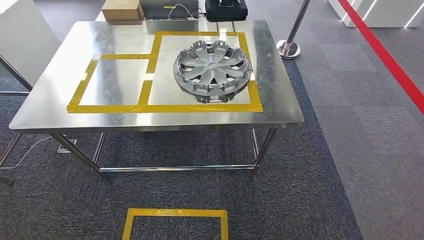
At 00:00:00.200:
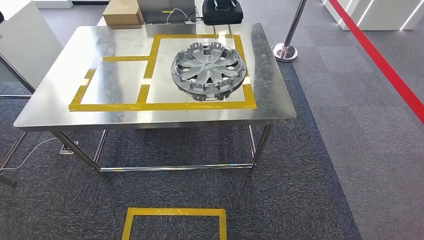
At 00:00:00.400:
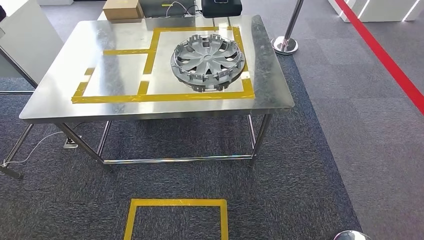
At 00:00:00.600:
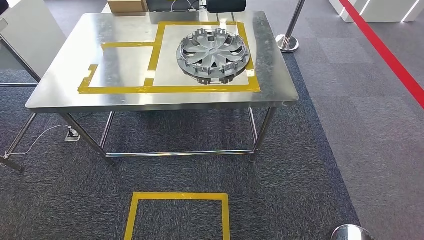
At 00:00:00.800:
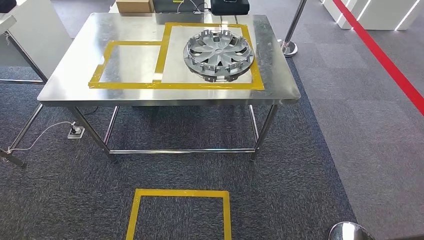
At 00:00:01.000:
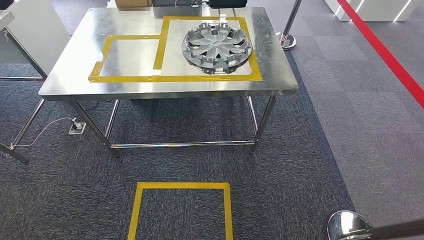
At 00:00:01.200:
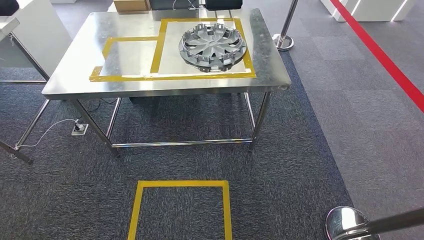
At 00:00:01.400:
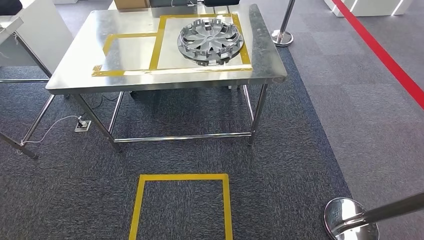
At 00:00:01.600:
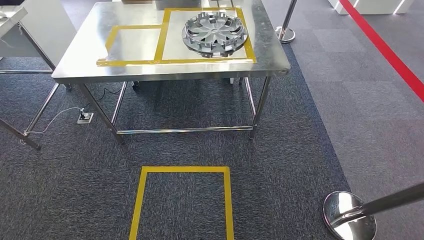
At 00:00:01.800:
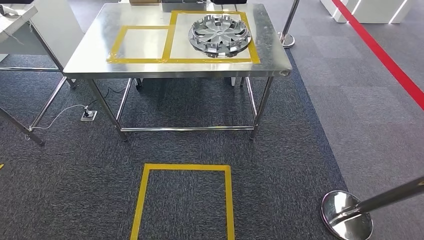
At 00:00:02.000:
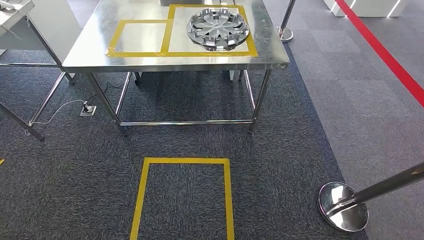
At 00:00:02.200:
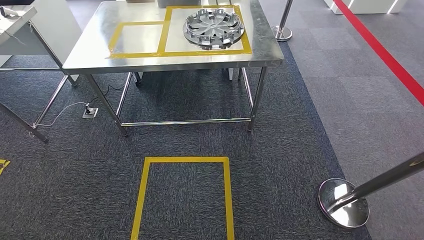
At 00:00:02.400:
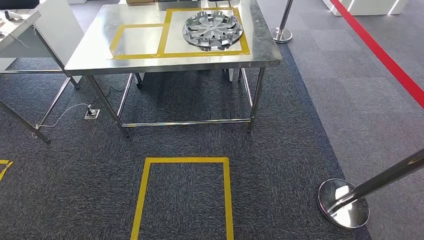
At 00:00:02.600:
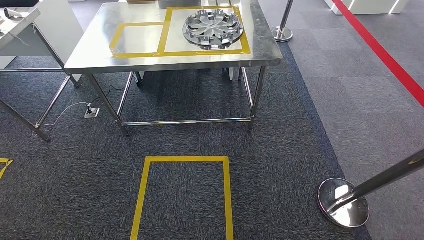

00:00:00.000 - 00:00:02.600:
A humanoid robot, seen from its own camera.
Step, 00:00:00.000 - 00:00:02.600: Return to the initial position at the workbench.
